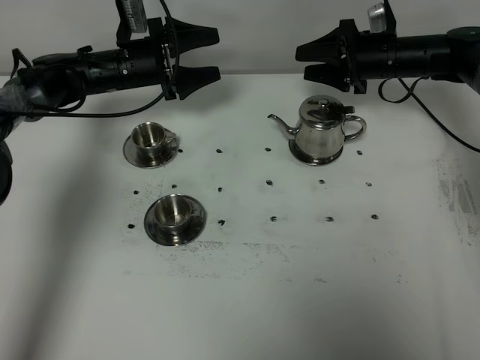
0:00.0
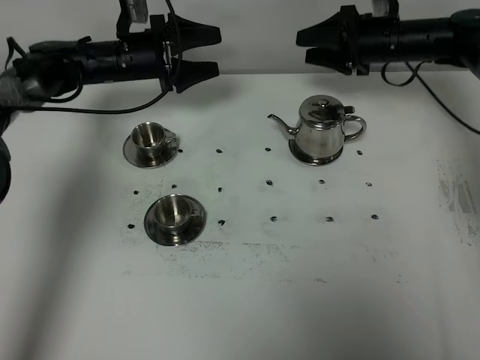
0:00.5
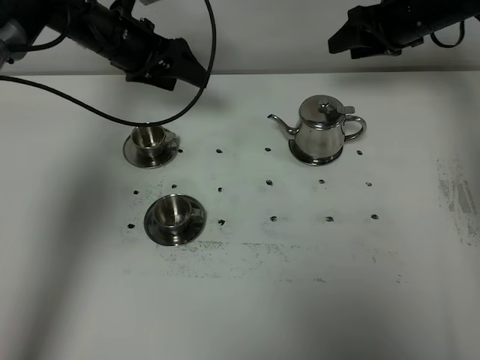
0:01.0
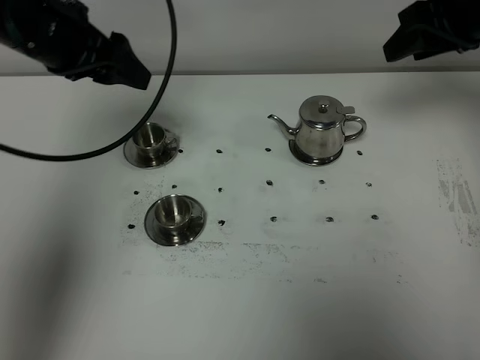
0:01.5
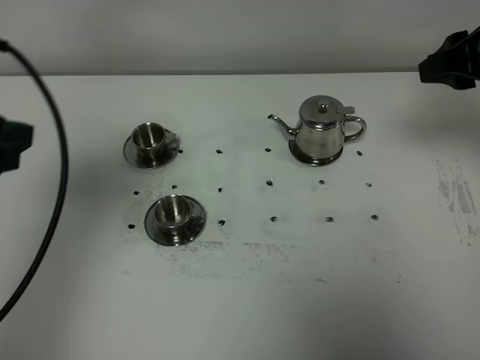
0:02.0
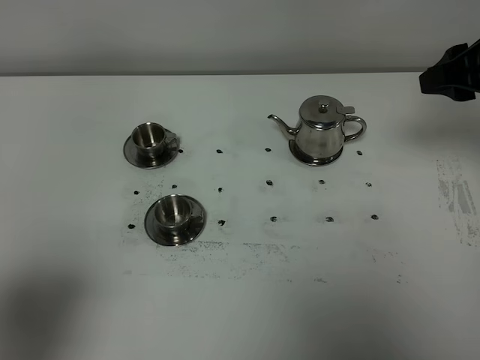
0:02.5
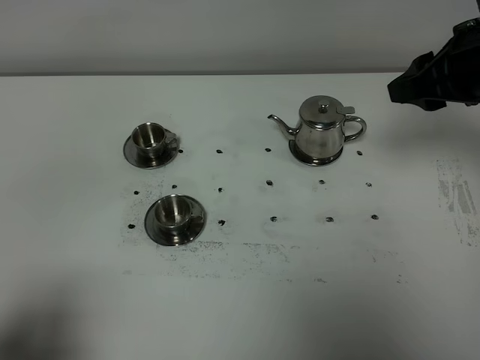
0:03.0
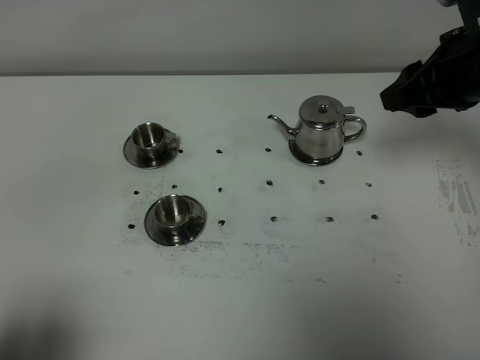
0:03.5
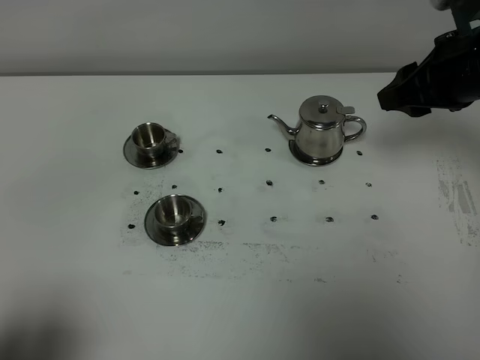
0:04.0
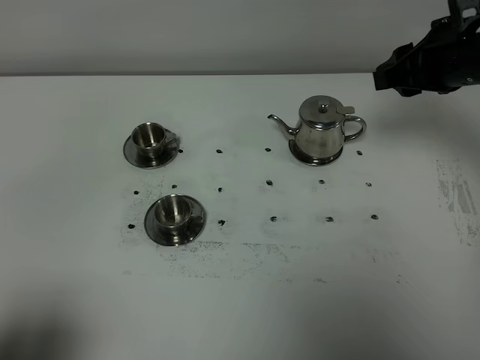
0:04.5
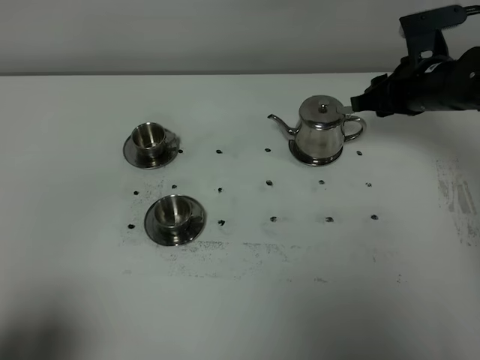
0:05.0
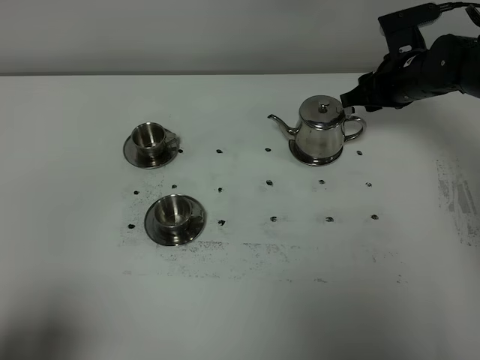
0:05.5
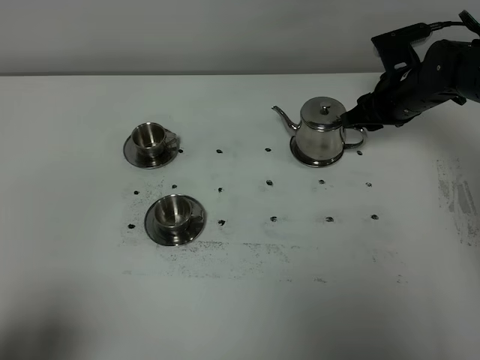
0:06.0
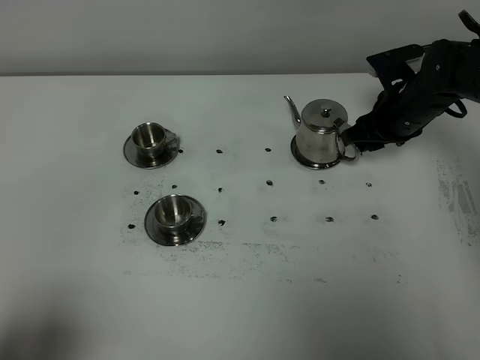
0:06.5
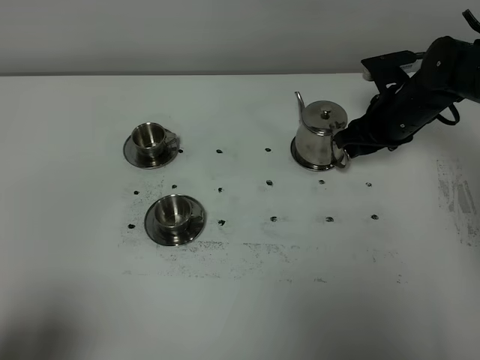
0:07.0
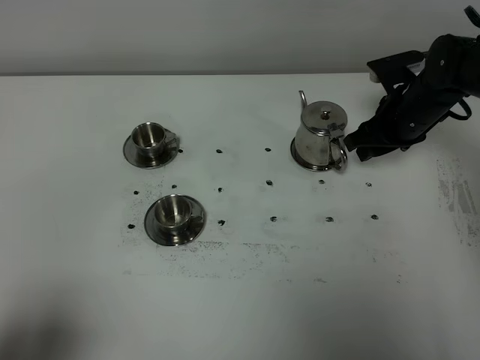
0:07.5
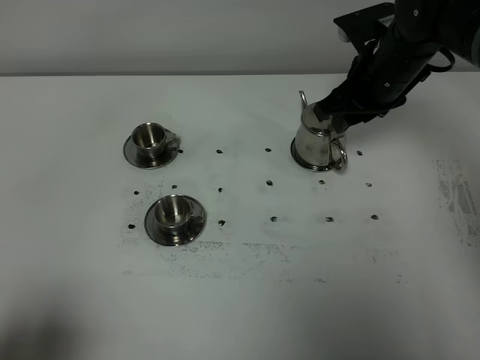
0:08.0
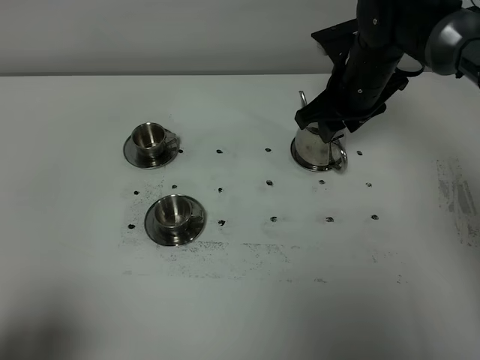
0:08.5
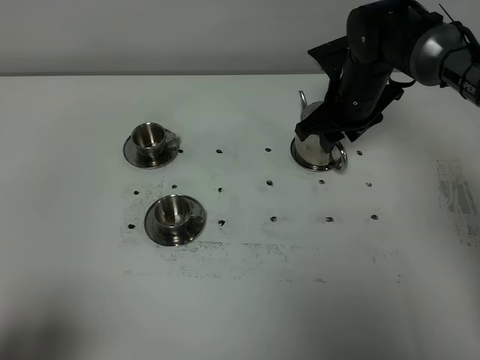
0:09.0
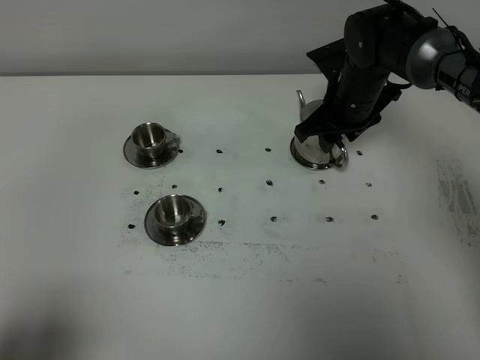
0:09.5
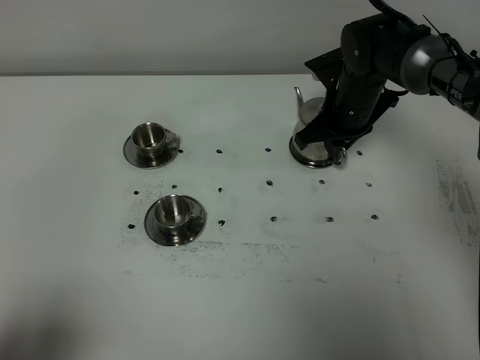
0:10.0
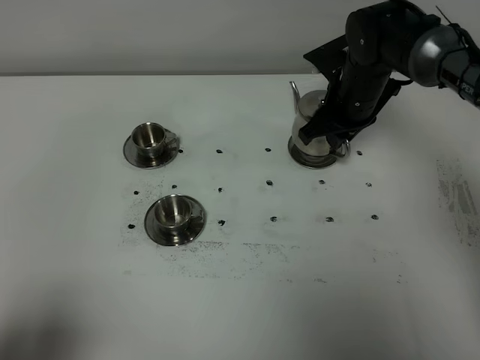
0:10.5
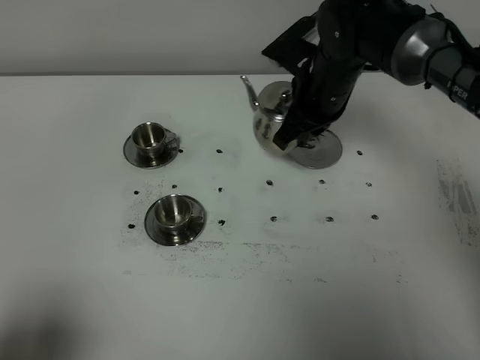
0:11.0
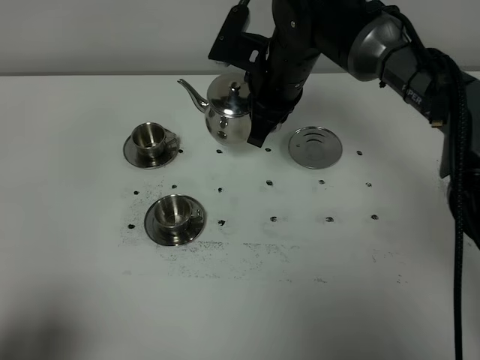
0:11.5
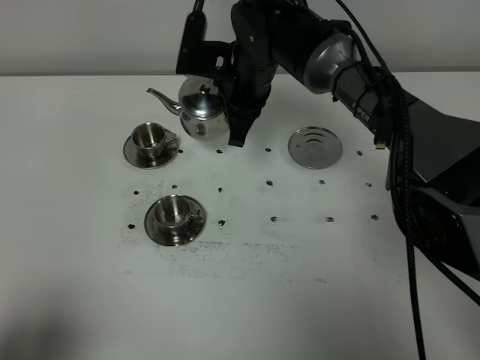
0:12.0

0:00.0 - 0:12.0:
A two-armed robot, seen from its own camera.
Task of the whole recording: grasp the stainless steel teapot and pour the tea into the two stainless steel teacups one by one, put the stainless steel teapot back in its original place.
Step, 0:00.0 - 0:10.5: Pick up the teapot with the right gripper.
0:00.0 - 0:02.0: Both grippers move backward and upward, roughly 35 cm. The left gripper closes its fingers.
0:02.0 - 0:04.0: The left gripper heads backward and downward, covering approximately 20 cm.
0:04.0 - 0:06.0: The right gripper is displaced downward and forward by approximately 20 cm.
0:06.0 - 0:08.0: The right gripper shifts roughly 10 cm upward and to the left.
0:08.0 - 0:10.0: The right gripper goes approximately 10 cm downward, and closes its fingers.
0:10.0 - 0:12.0: The right gripper moves to the left and upward, about 15 cm.

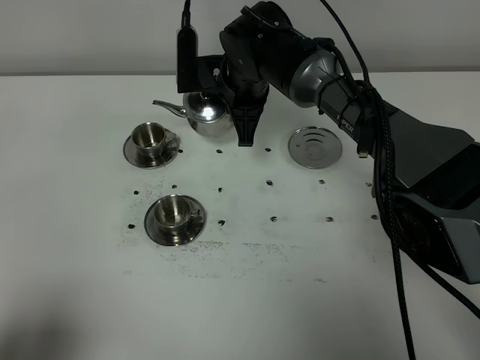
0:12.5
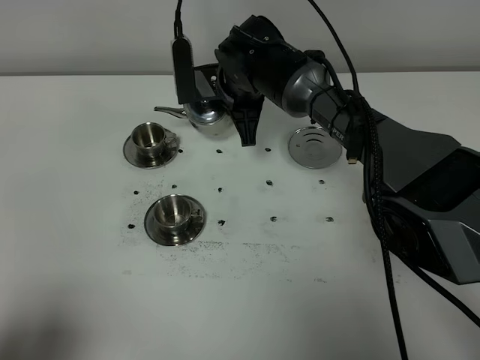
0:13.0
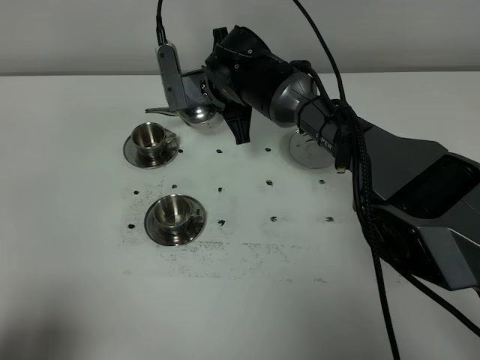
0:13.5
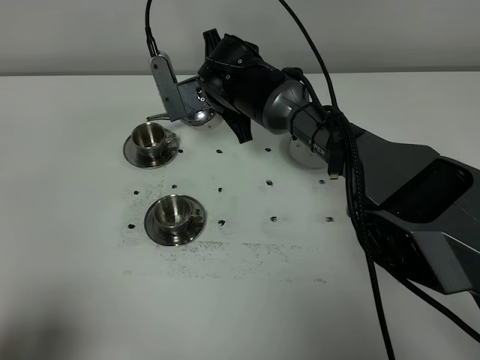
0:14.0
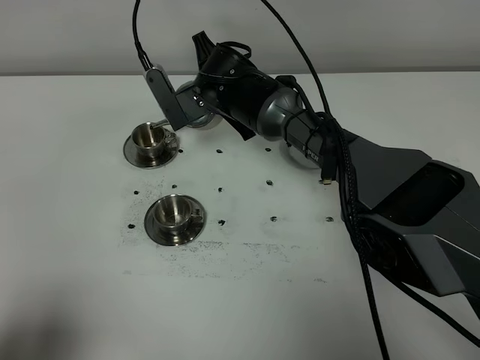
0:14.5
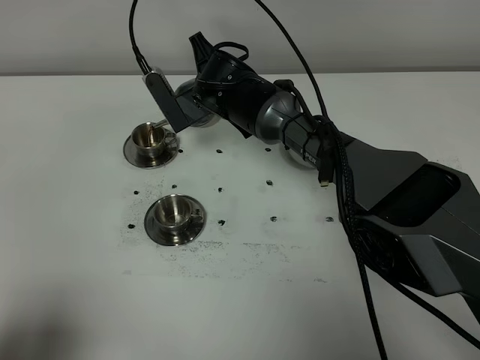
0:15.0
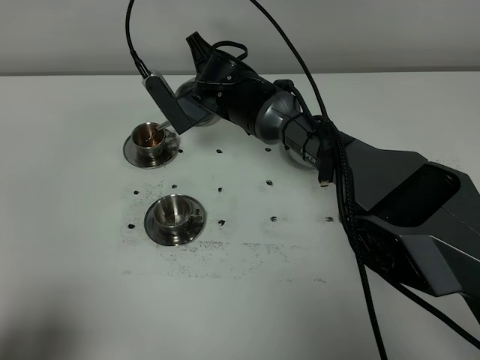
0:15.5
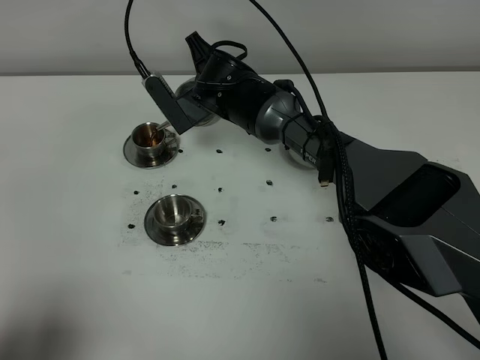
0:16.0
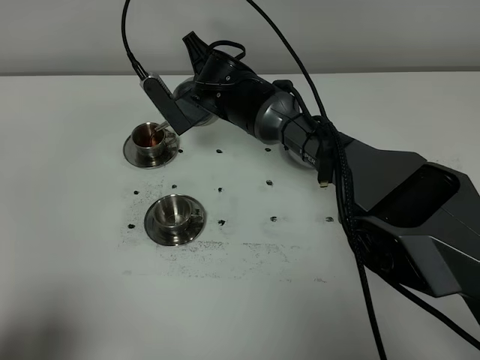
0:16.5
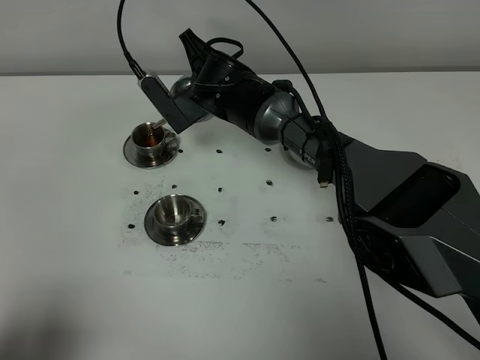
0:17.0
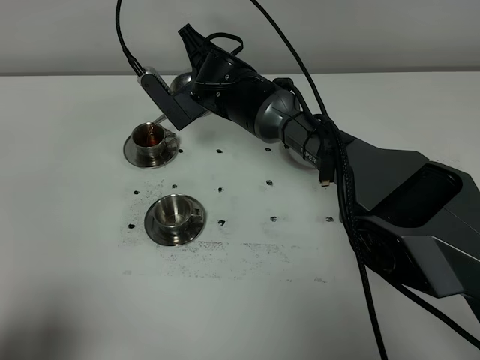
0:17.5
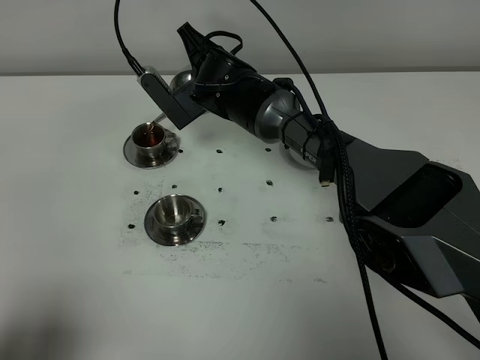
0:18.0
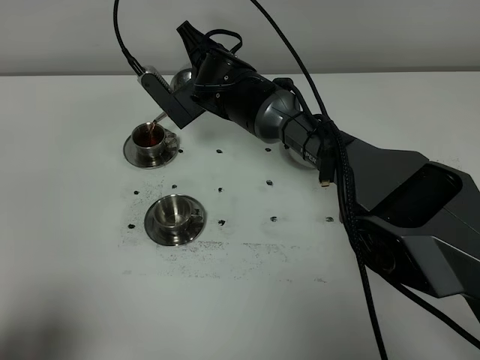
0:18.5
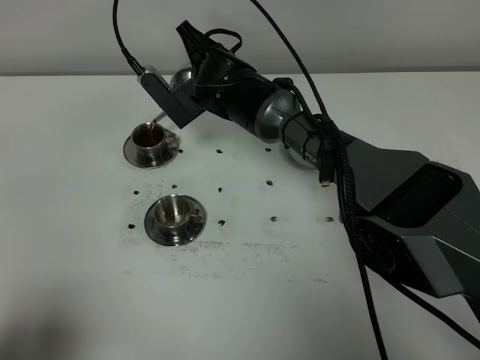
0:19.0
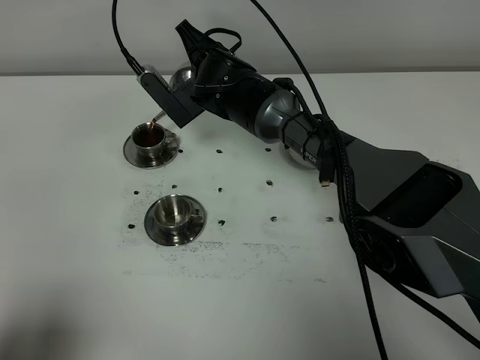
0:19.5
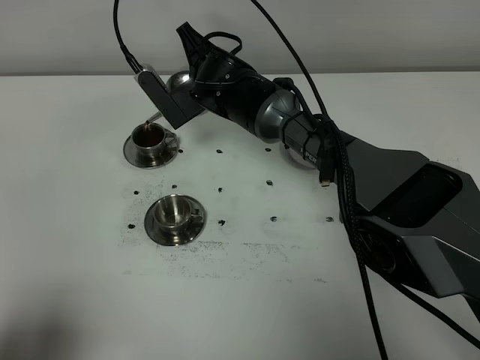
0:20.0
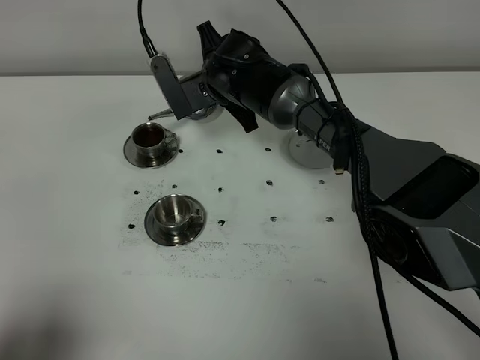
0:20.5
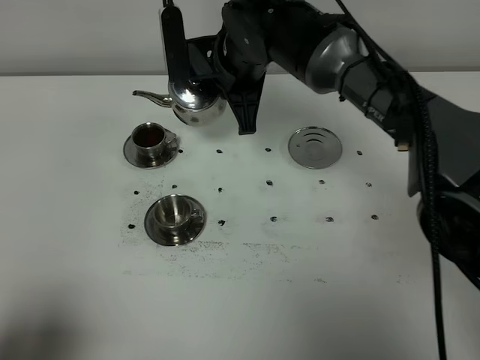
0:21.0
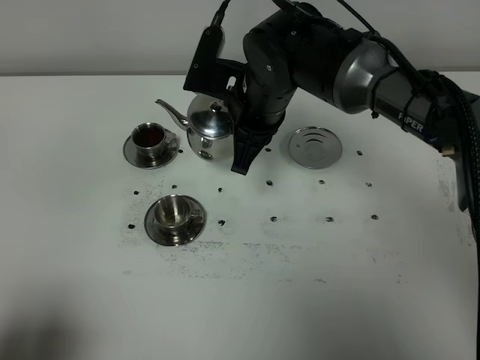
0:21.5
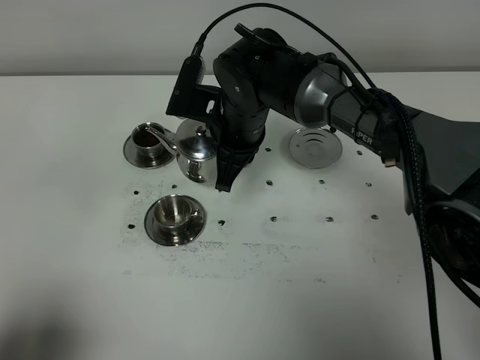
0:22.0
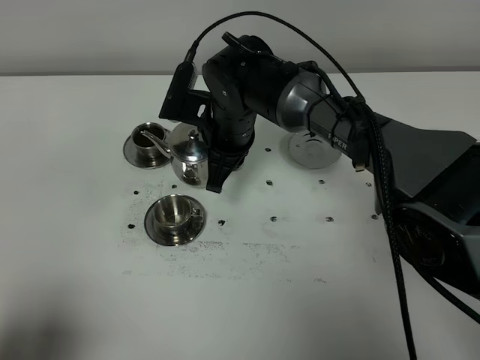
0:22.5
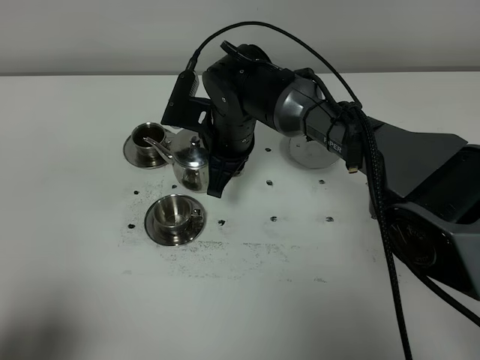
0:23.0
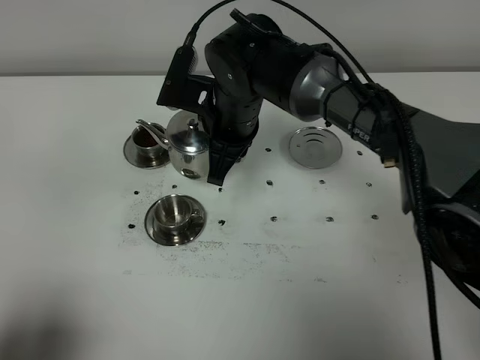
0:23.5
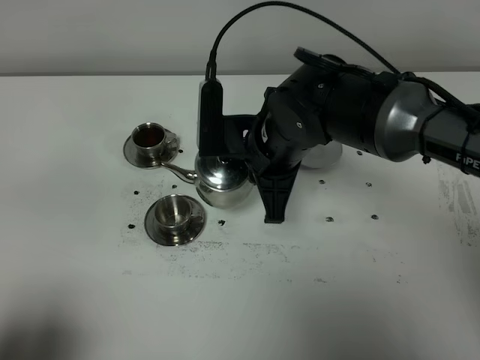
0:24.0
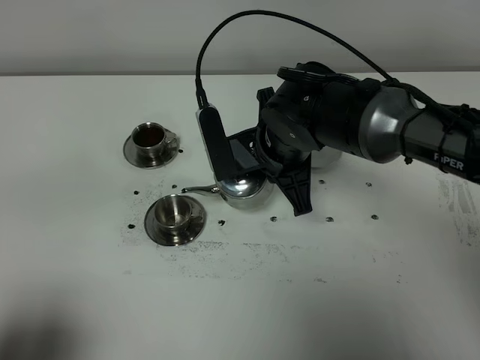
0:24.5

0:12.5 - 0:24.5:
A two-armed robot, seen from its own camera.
Task of the whole recording: grasp the stainless steel teapot and pour the tea into the two stainless steel teacups one by one, put the stainless steel teapot back in its original place.
Step, 0:12.5 - 0:20.5: Pour tea into the teacup with the right gripper.
0:14.5 - 0:20.5: The grippers stay close to where they were, moving slightly.
0:20.5 - 0:22.5: The right gripper is displaced backward by roughly 5 cm.
0:22.5 - 0:24.5: The right gripper goes roughly 10 cm backward and to the right.

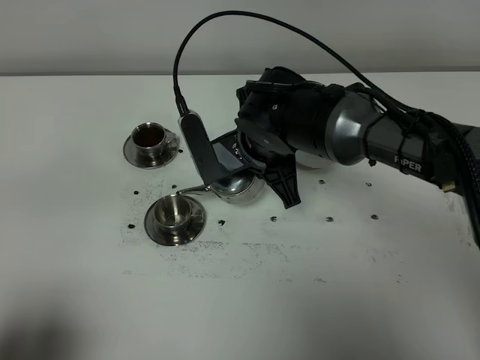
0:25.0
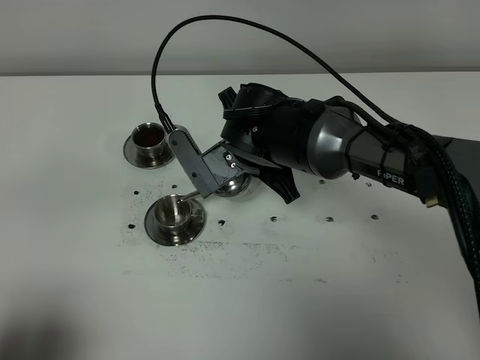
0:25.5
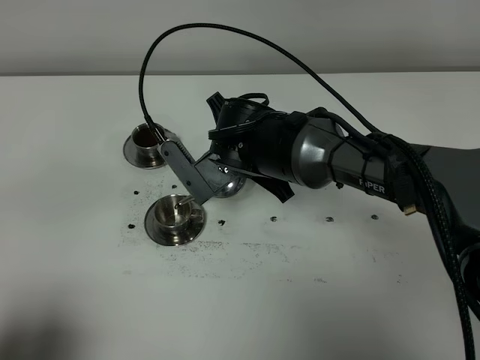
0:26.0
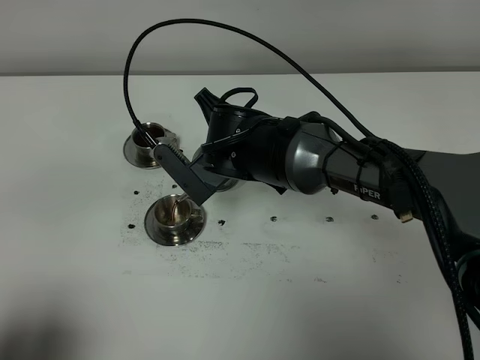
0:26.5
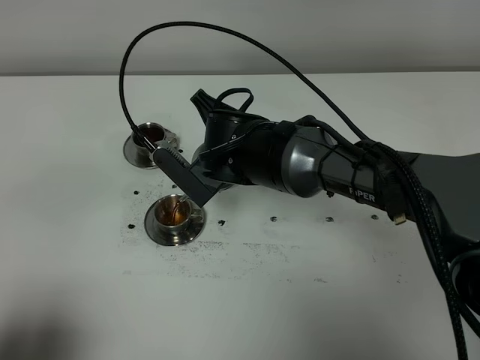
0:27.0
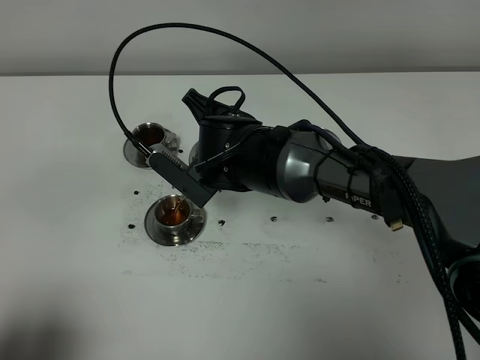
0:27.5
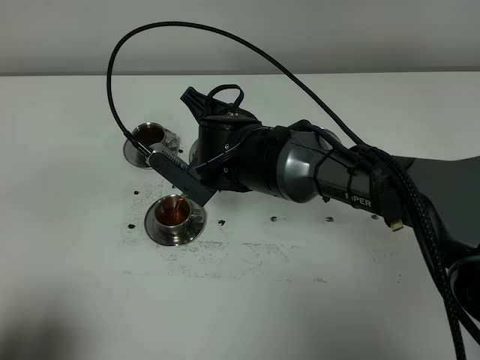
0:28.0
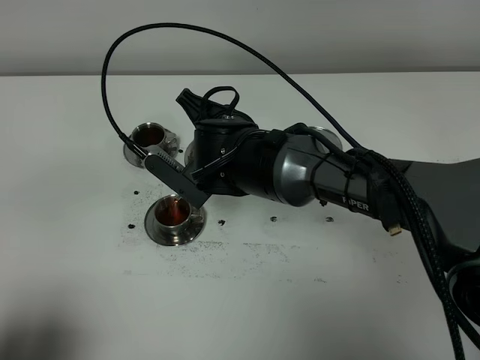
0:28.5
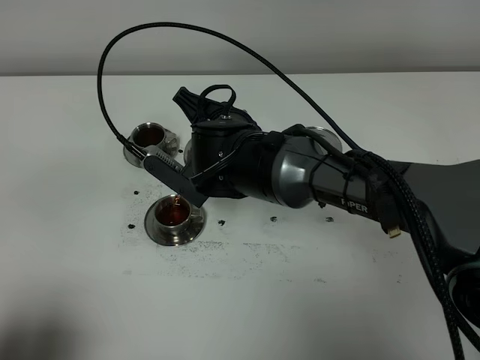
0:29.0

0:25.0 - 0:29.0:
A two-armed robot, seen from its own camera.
Task of the whole recording: grasp the stainless steel teapot and pour the tea into the two stainless steel teacups one by one, put the stainless steel teapot back in its original place.
0:27.0 - 0:29.0: The grippers make only small movements.
